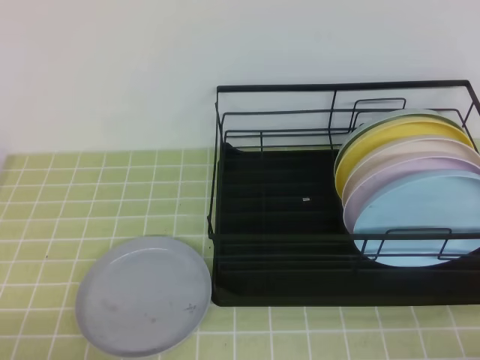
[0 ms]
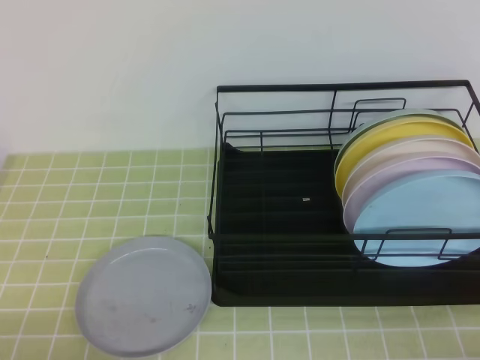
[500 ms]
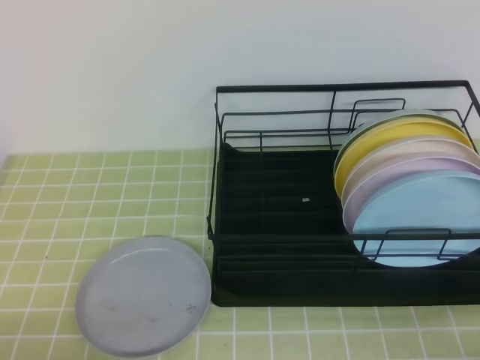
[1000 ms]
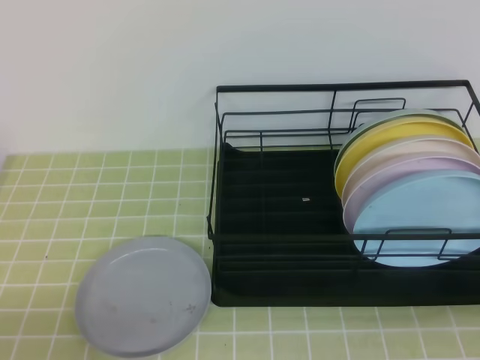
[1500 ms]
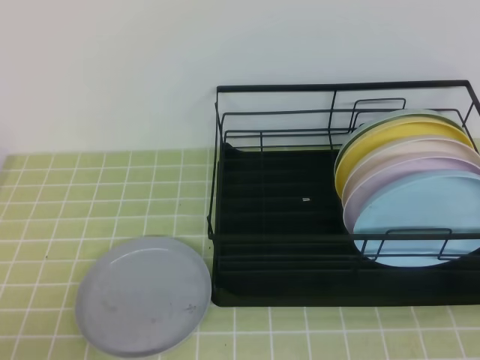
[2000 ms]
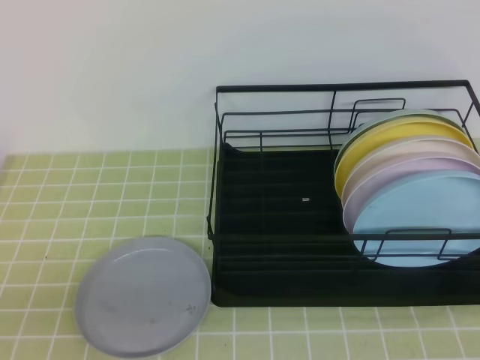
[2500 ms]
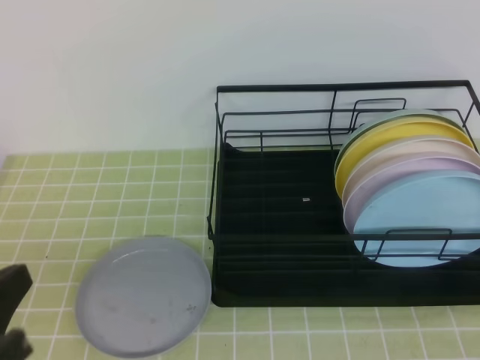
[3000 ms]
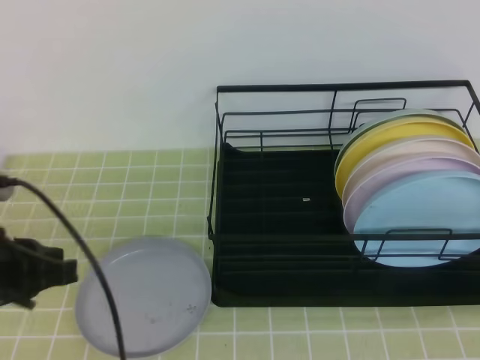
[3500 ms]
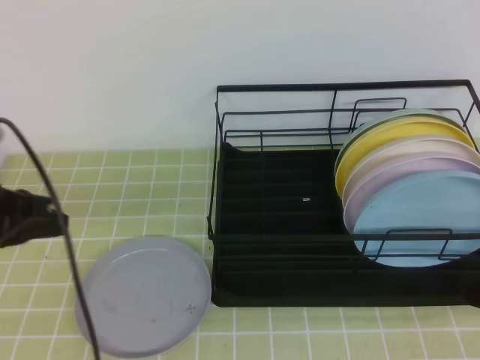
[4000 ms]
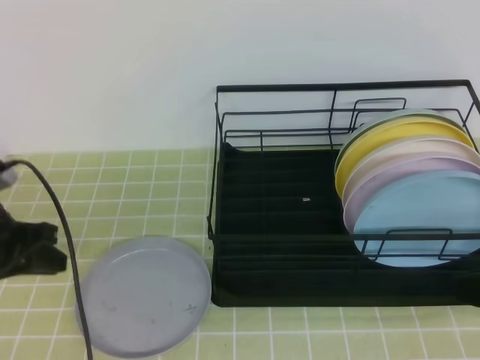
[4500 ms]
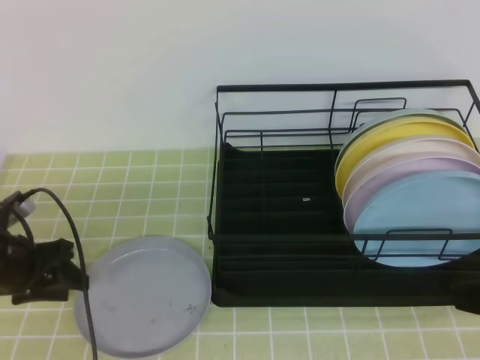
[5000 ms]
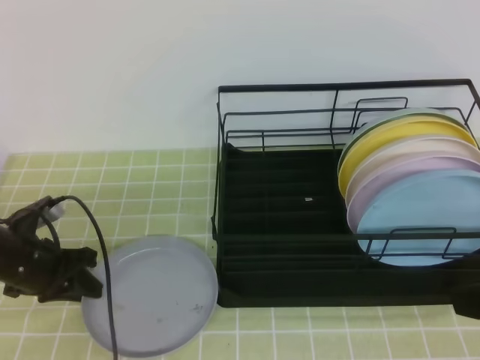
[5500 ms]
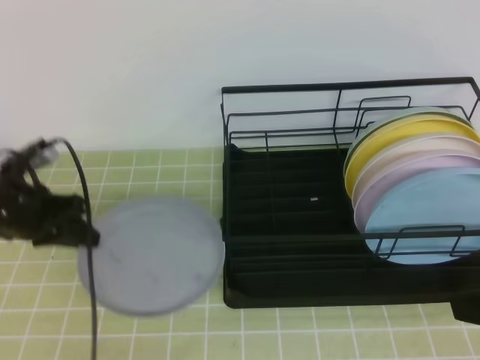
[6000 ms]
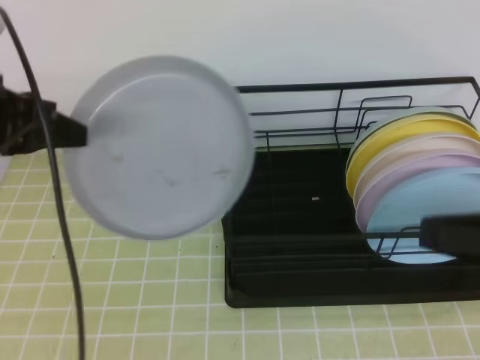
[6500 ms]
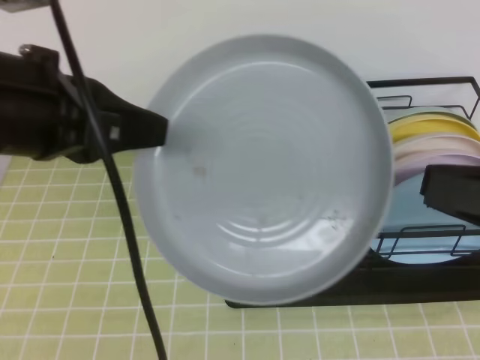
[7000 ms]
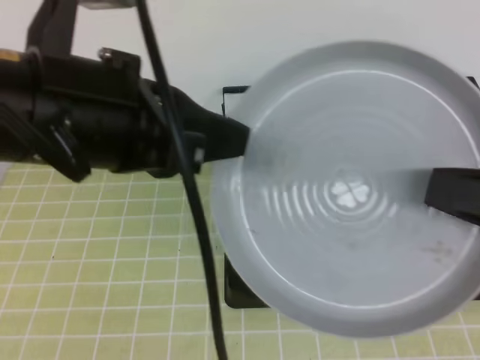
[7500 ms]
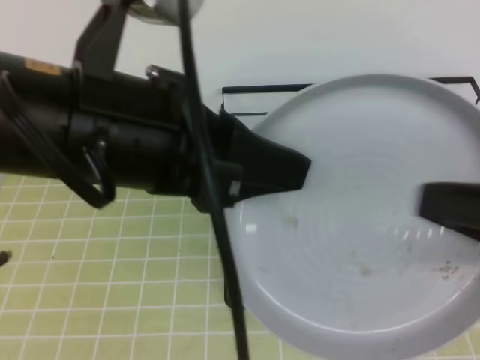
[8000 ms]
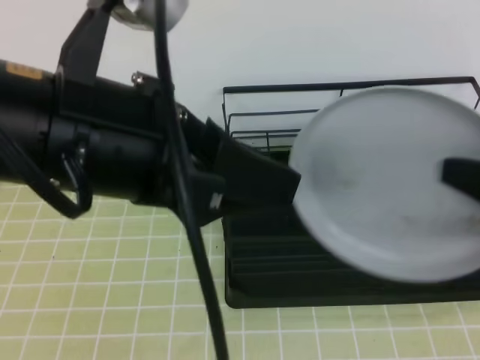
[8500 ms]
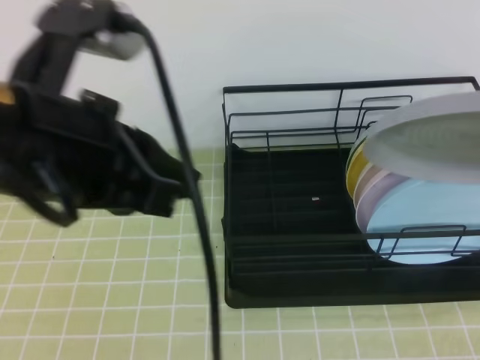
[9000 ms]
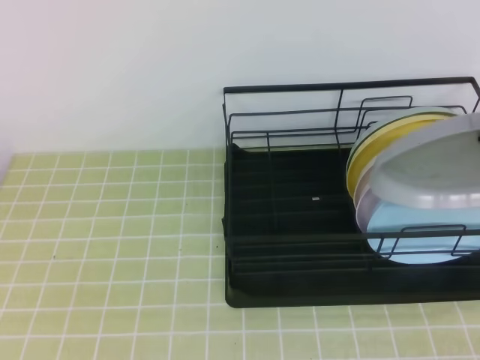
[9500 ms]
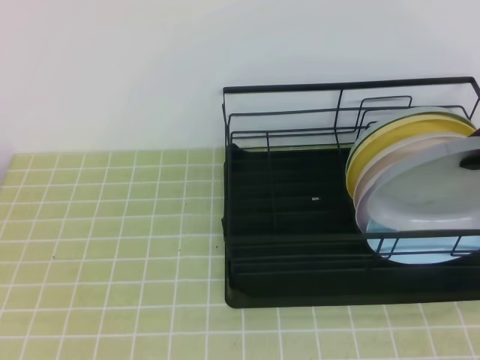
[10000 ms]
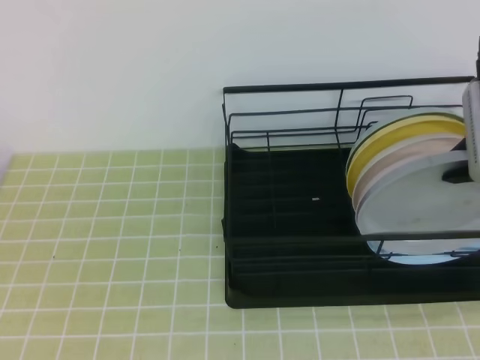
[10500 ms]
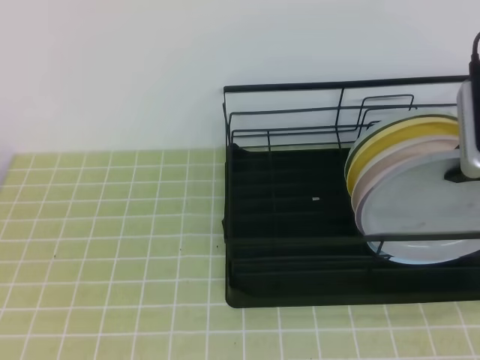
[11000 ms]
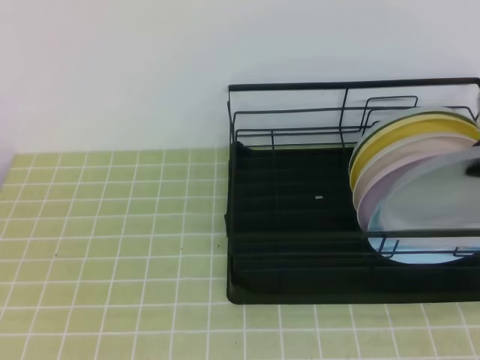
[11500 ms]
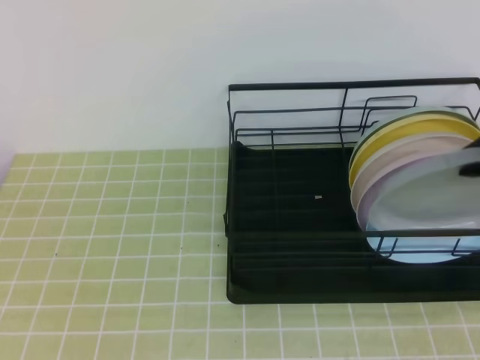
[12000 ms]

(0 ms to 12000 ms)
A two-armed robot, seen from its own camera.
Step, 0 ms - 4500 ms: Left grab the gray plate.
2000 ms - 4000 ms: The left gripper shifts roughly 20 cm forward. Meanwhile the right gripper is displaced forward and to the left by some 15 cm.
4000 ms - 6000 ms: The left gripper goes about 10 cm forward and downward, and opens, then closes once more.
6000 ms - 8000 ms: The left gripper shifts about 35 cm upward, to the right and backward, and opens its fingers, while the right gripper moves about 5 cm, and opens, then closes once more.
8000 ms - 10000 ms: The left gripper goes approximately 20 cm to the left and backward, and closes. Meanwhile the right gripper is displaced forward by roughly 10 cm.
10000 ms - 12000 ms: The grippers move only a little.

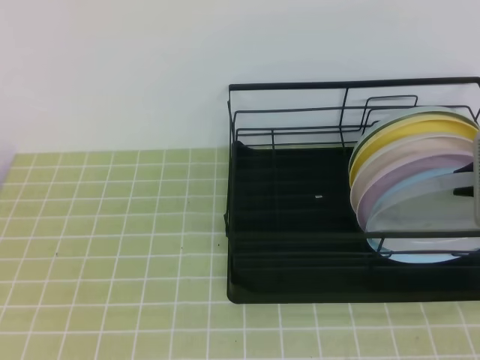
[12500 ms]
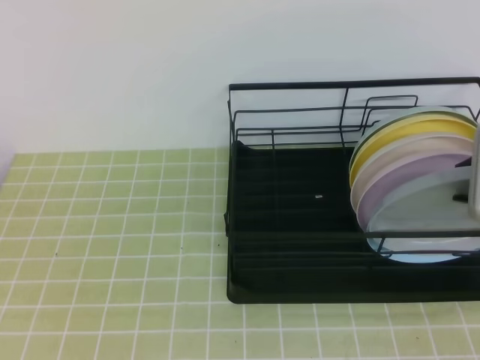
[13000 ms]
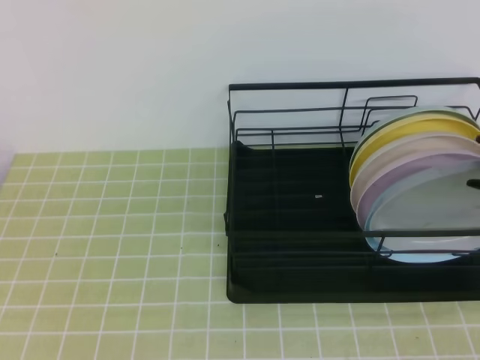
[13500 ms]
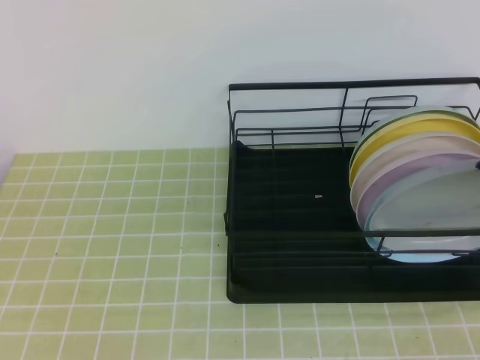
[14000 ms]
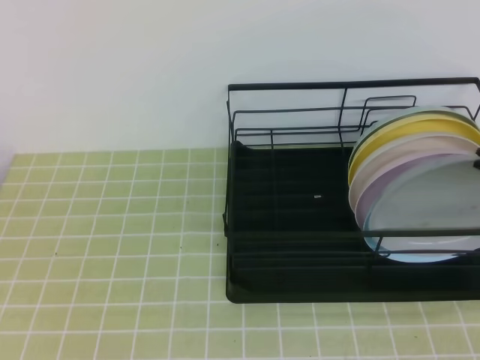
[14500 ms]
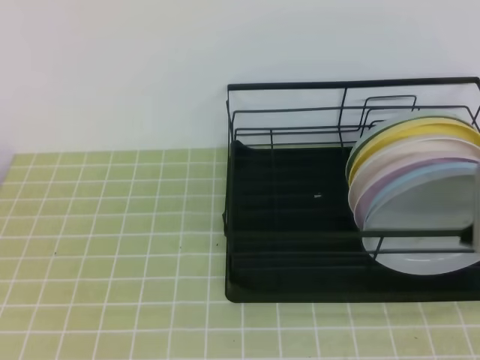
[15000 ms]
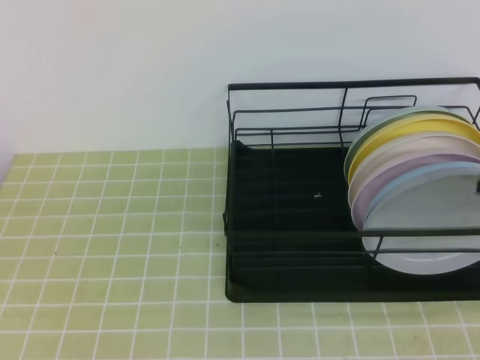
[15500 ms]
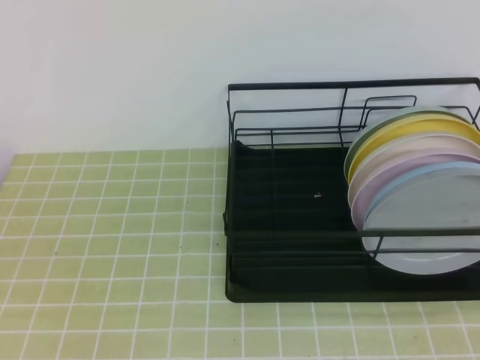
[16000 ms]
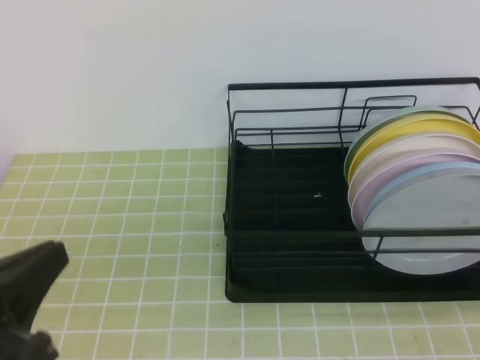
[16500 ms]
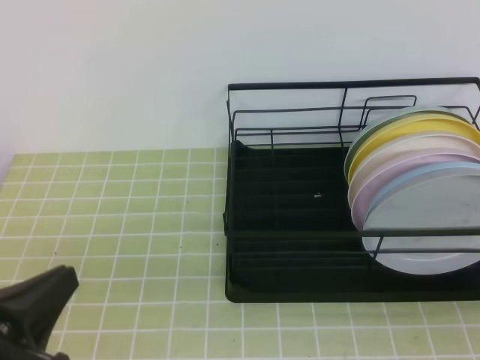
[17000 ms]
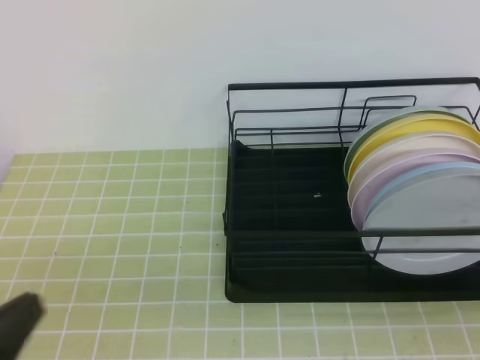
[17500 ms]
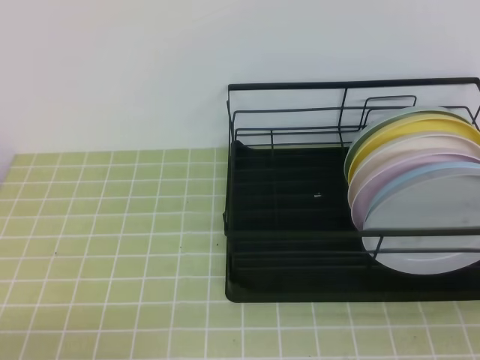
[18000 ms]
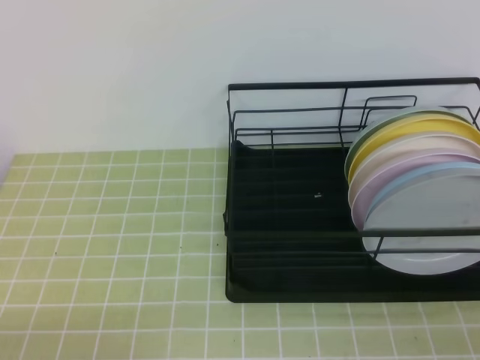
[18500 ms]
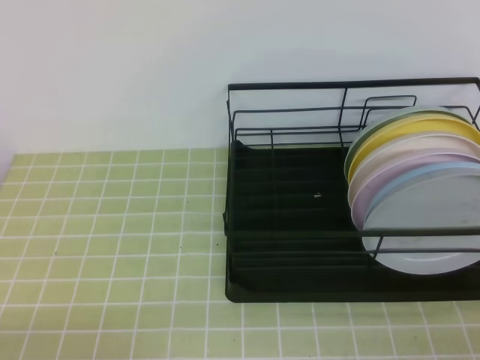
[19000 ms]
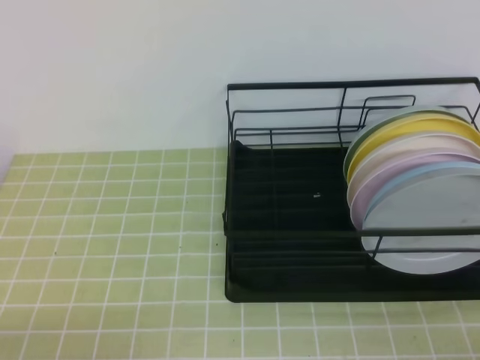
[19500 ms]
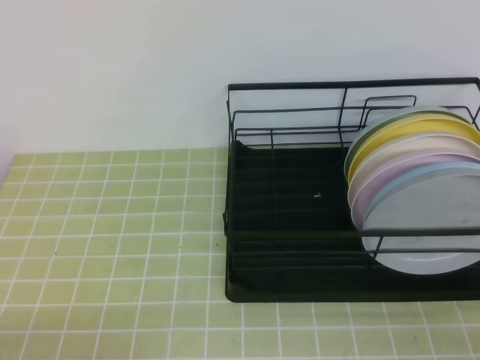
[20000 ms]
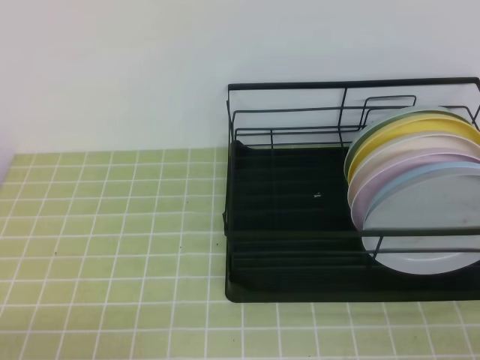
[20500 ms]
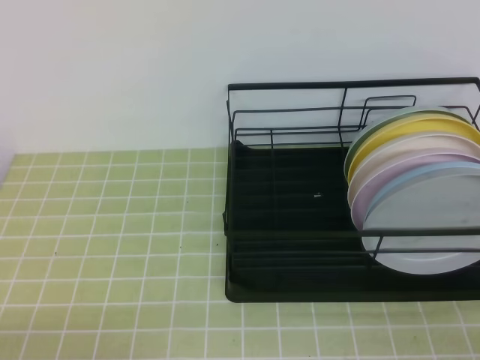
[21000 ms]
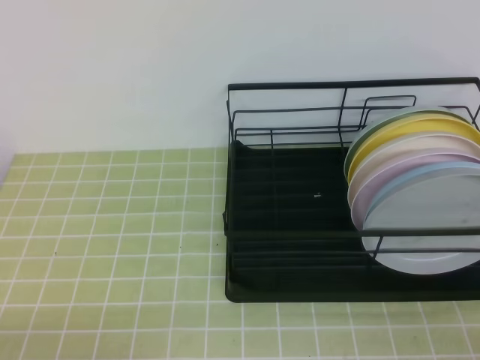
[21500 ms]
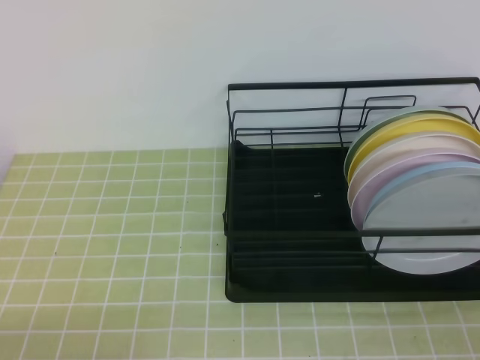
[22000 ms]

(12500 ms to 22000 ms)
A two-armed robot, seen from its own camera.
12500 ms - 14500 ms: The right gripper opens and closes again.
14500 ms - 16500 ms: The right gripper is displaced backward by approximately 20 cm. Meanwhile the left gripper travels downward by about 10 cm.
16500 ms - 18000 ms: The left gripper moves downward, about 15 cm.
20000 ms - 22000 ms: Both grippers stay put.
